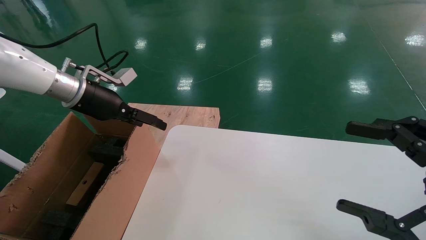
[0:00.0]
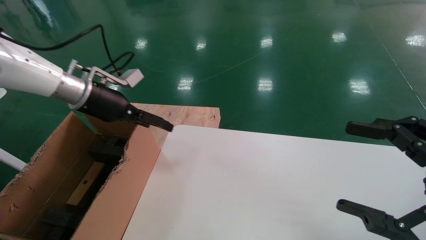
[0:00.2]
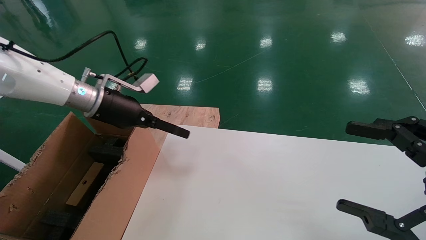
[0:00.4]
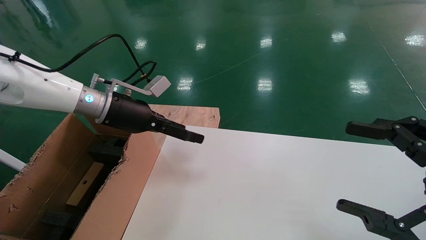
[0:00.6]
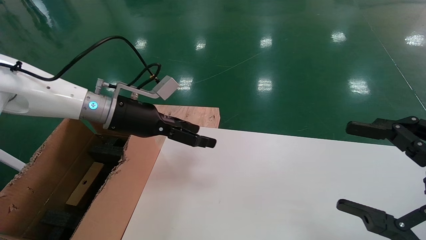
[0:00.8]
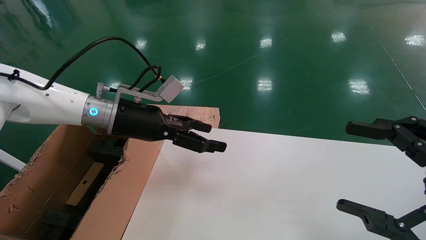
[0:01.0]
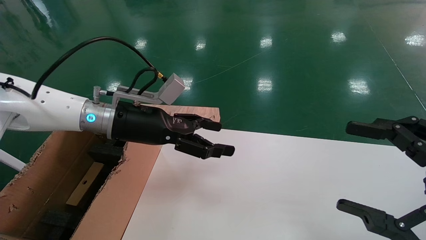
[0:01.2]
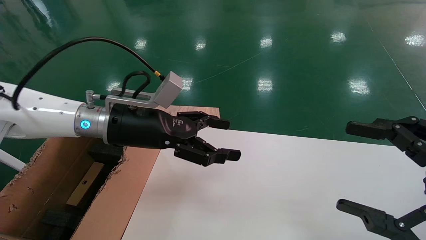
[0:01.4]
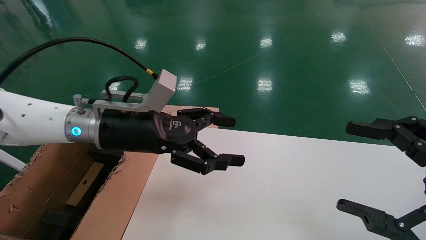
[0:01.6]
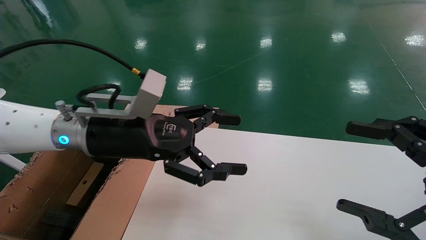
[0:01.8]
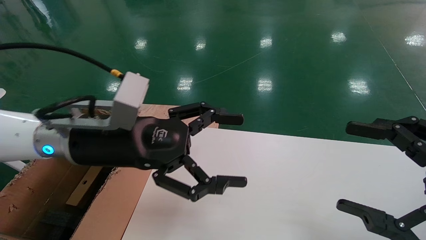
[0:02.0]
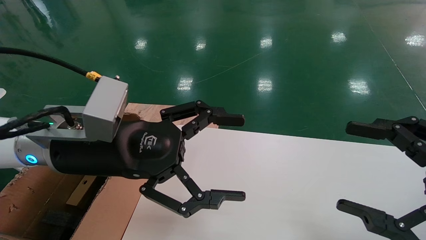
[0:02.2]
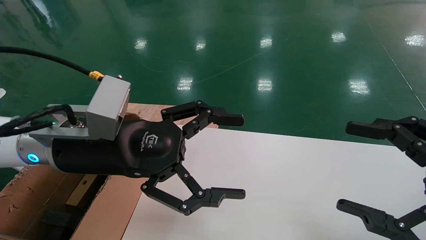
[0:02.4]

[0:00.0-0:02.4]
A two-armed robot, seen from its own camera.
Task of the whole recording: place the small box on the table into the large box on the left.
0:00.0 to 0:01.2: The left gripper is displaced to the right by approximately 10 cm.
0:01.2 to 0:02.4: The left gripper heads backward, covering roughly 10 cm.
